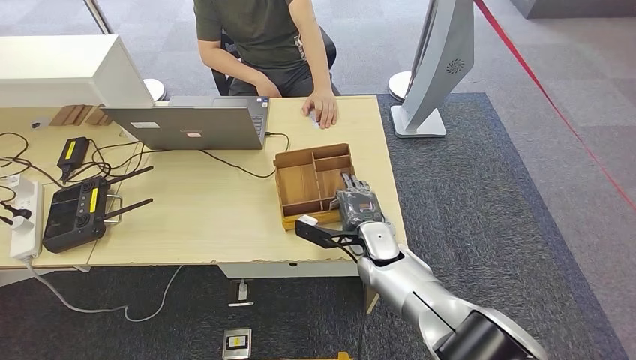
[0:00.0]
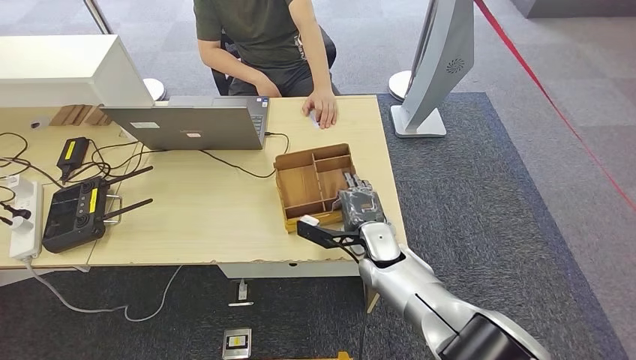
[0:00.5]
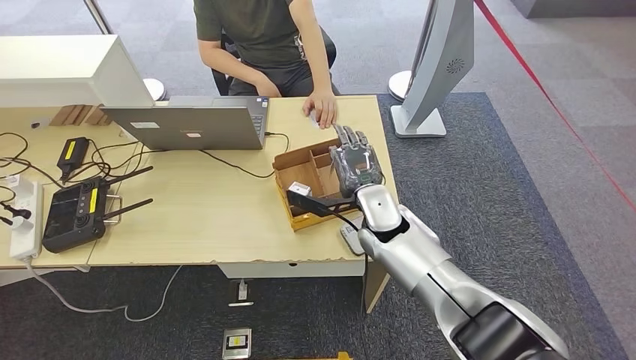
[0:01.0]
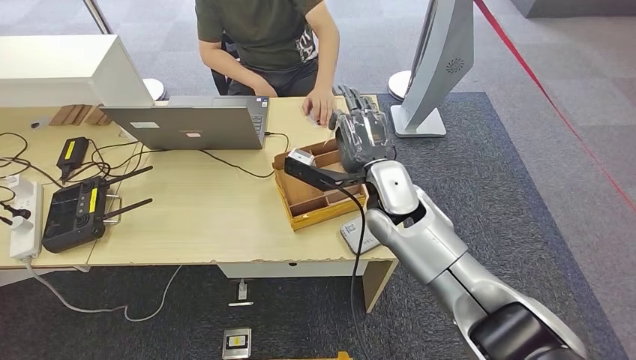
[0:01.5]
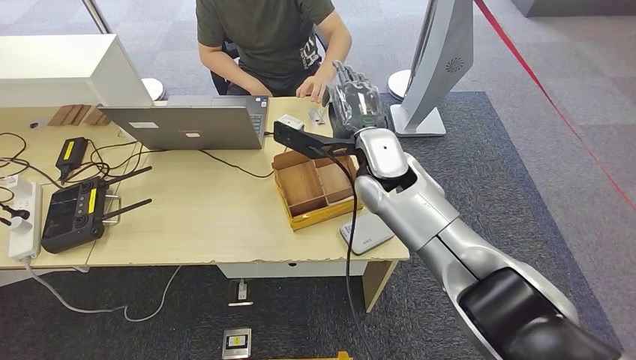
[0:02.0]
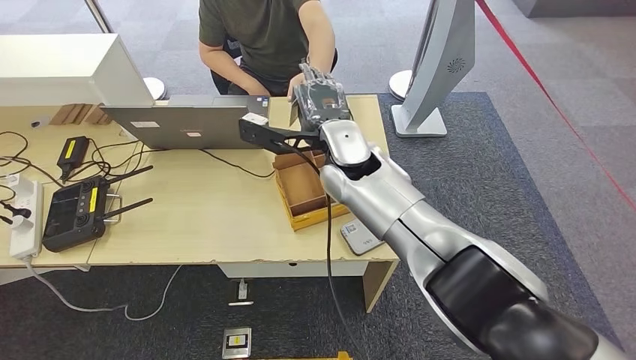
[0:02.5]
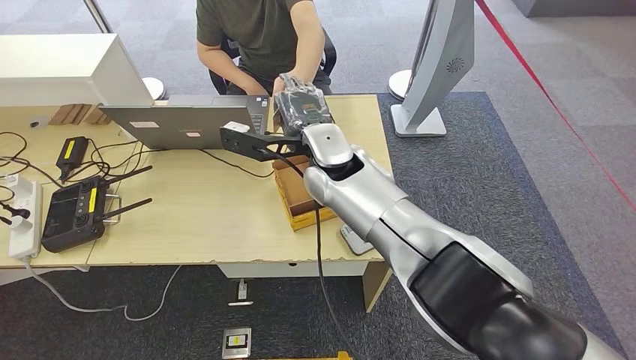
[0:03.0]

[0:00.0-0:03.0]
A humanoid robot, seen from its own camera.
Step, 0:00.0 to 0:03.0: Hand the room key to the person.
0:00.0 to 0:01.5: The right hand shifts approximately 15 cm upward.
0:01.5 to 0:03.0: The right hand goes about 10 cm to the left and upward.
